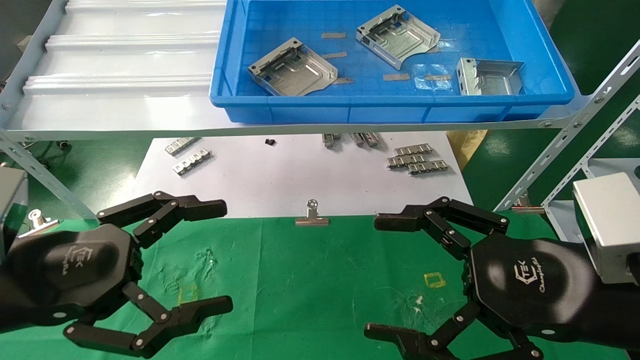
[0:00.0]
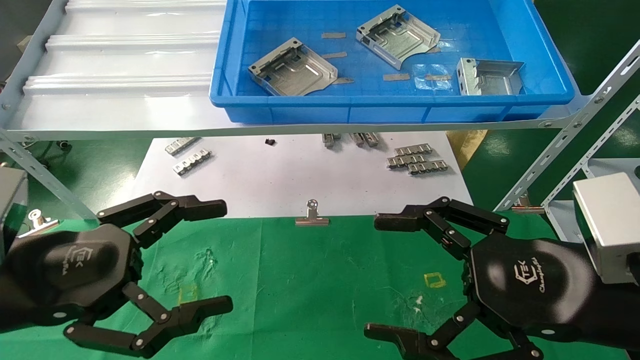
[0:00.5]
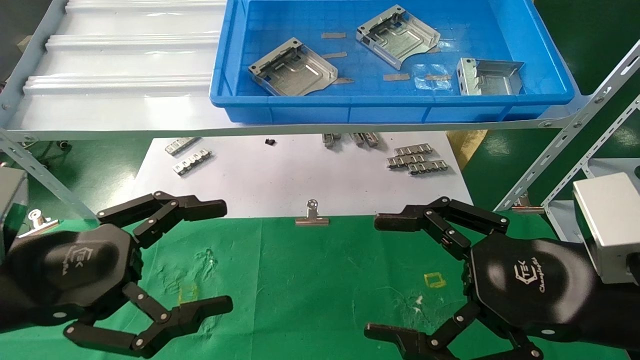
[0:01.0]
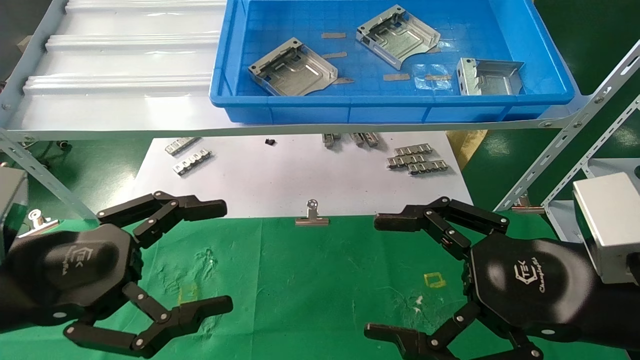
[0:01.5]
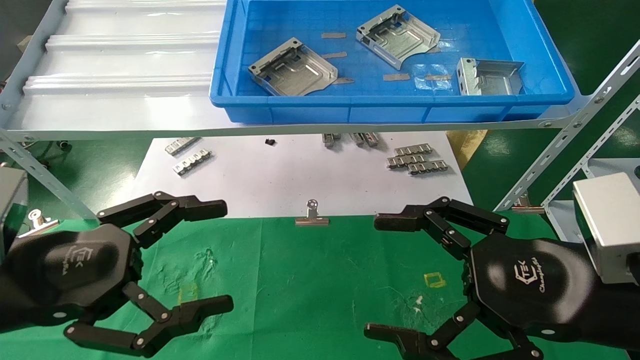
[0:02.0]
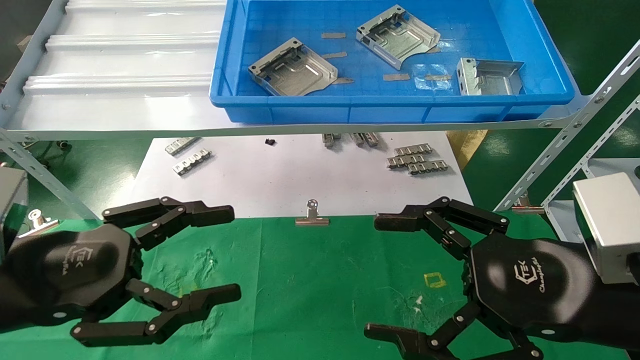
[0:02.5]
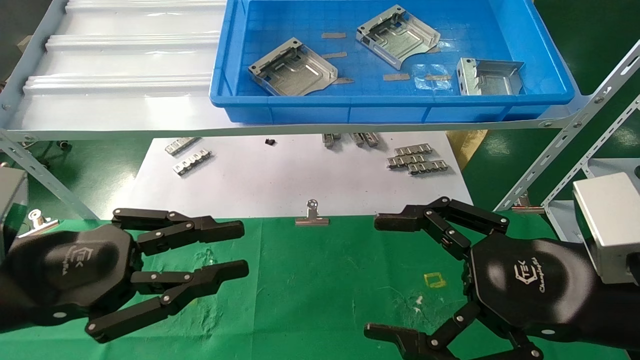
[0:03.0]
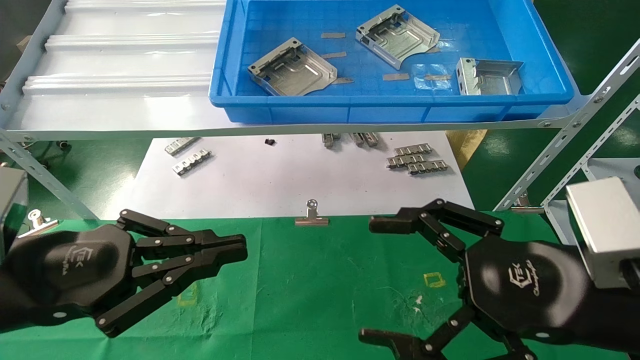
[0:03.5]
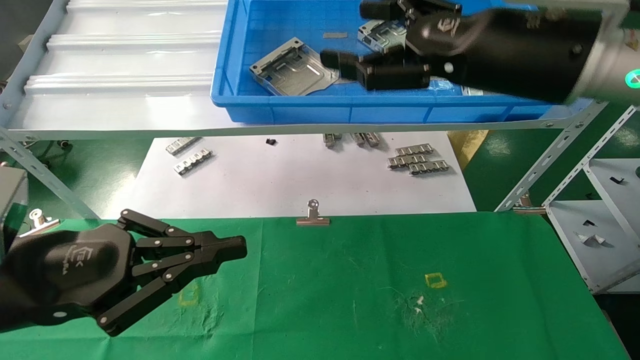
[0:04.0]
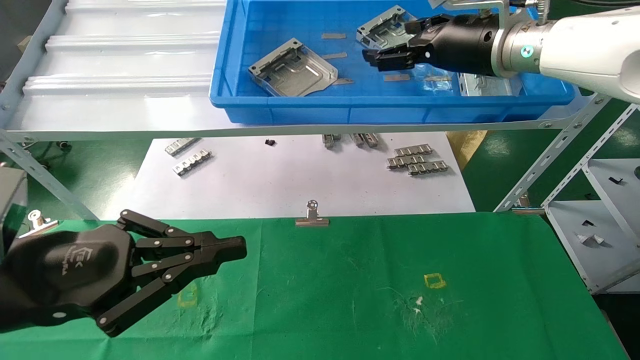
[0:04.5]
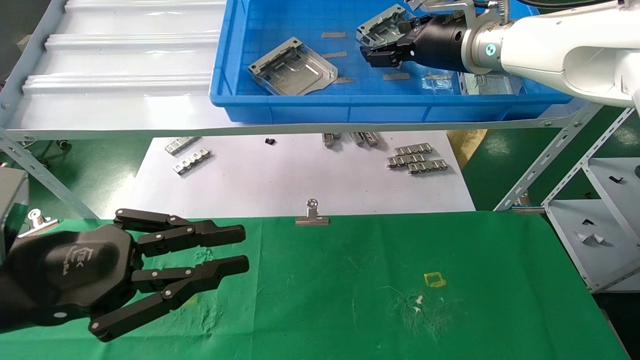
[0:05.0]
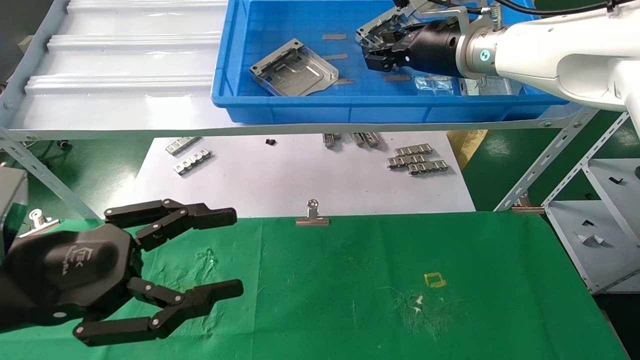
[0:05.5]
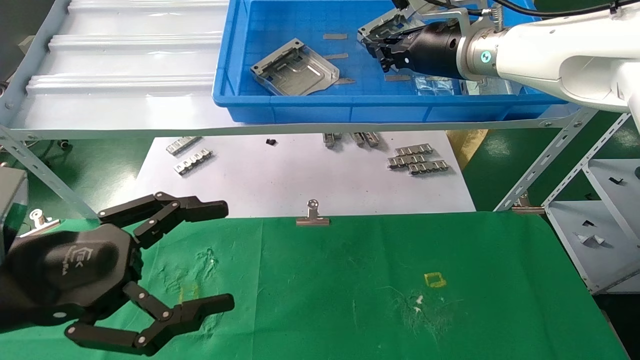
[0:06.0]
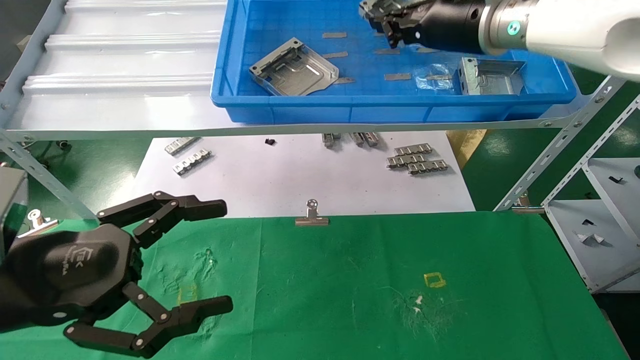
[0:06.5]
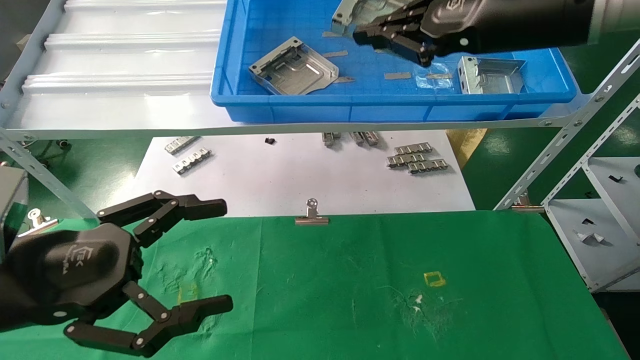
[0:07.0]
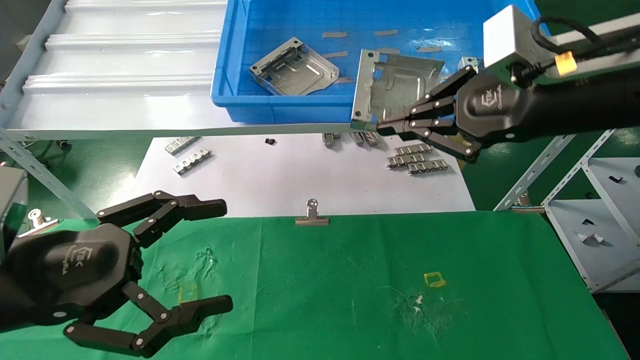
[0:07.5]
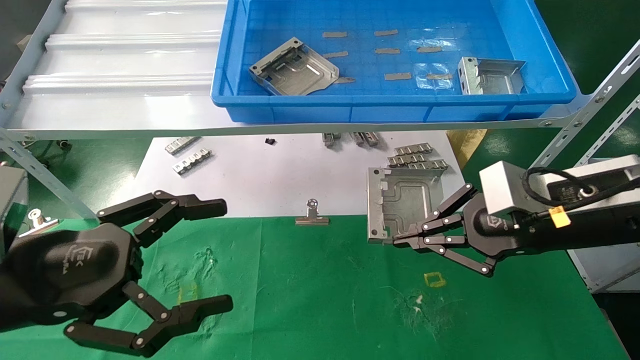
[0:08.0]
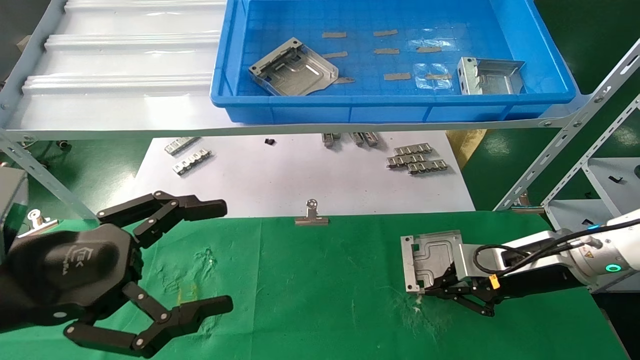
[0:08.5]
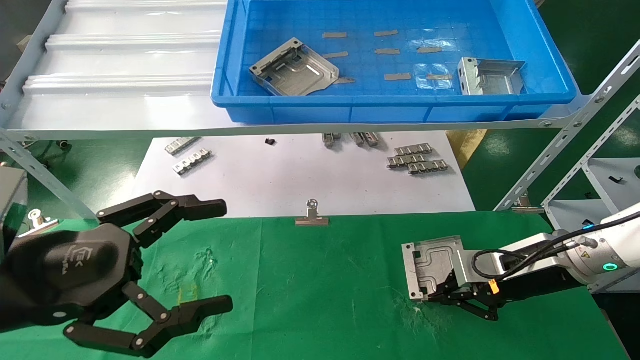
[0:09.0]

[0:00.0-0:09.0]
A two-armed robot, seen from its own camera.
Task of the whole recording: use the mechanical arm to pick up the parts and place them on the table.
Step, 0:04.0 to 0:06.0: Pick up the hard drive bracket from the feeding area.
0:00.0 to 0:02.0: Both grippers stay put.
0:02.0 to 0:04.5: The right gripper travels forward and upward by roughly 30 cm. Meanwhile the left gripper closes up.
0:04.5 to 0:07.0: The right gripper shifts some 10 cm backward, and closes up; the left gripper opens its fingers.
0:07.0 to 0:09.0: The right gripper shifts some 30 cm downward.

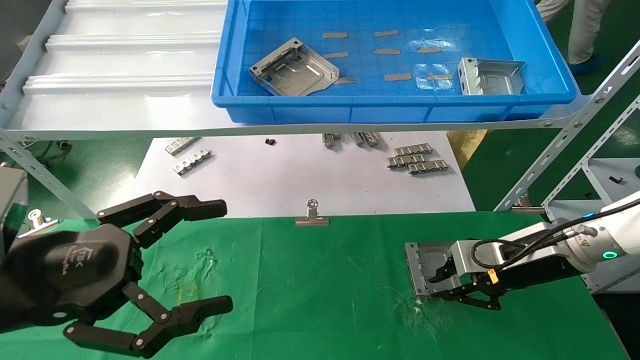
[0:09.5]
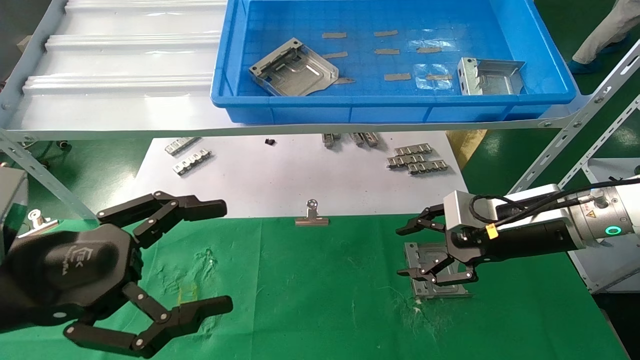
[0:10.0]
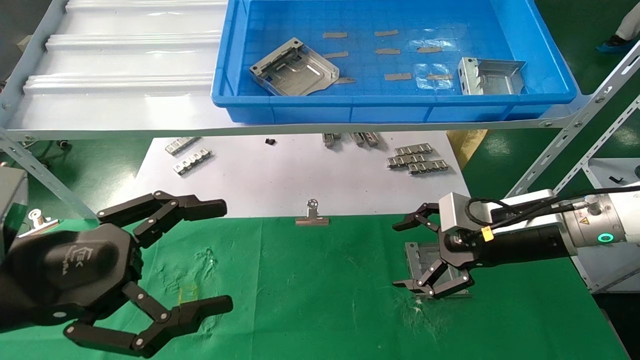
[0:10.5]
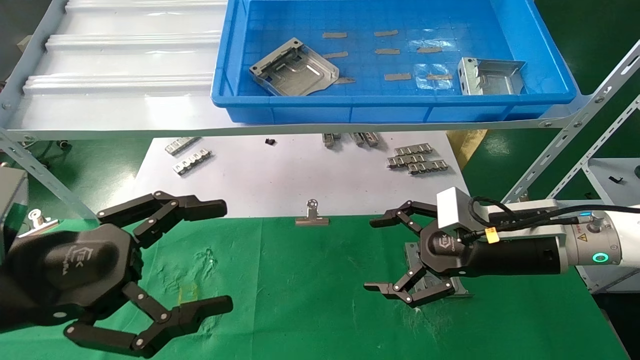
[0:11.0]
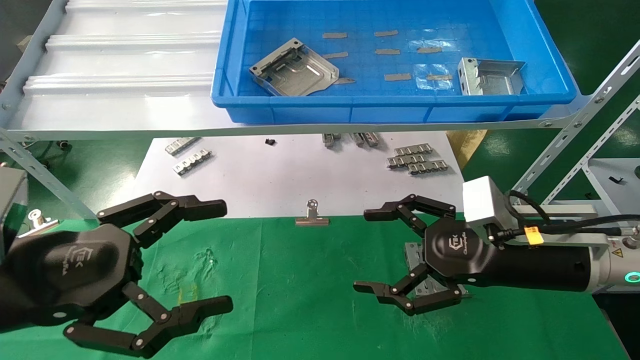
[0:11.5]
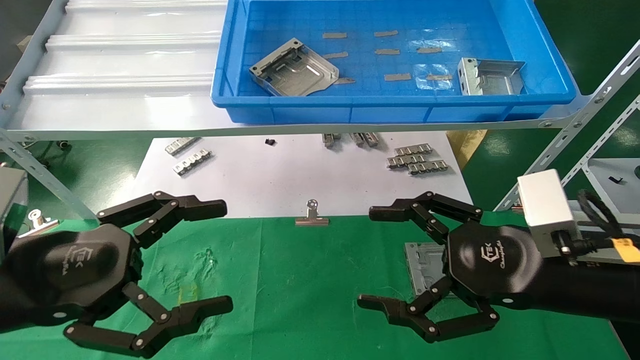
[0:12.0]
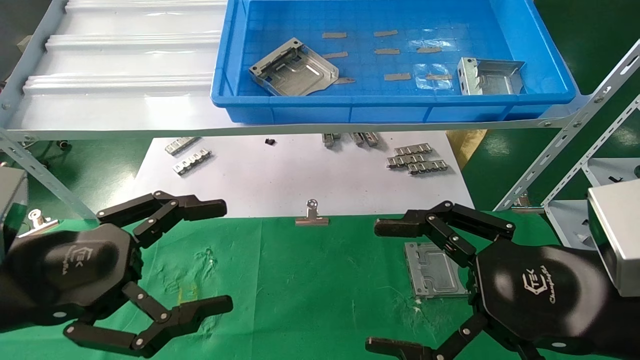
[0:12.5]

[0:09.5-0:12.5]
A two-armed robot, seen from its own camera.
Task of the whole recording: use the mechanical arm to pick up the parts and place them on the table.
0:09.5 to 0:11.0: The right gripper goes some 5 cm to the left, and opens.
0:11.0 to 0:12.5: The right gripper travels backward by about 15 cm.
